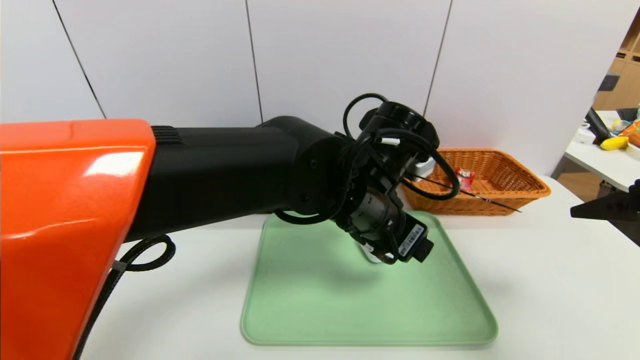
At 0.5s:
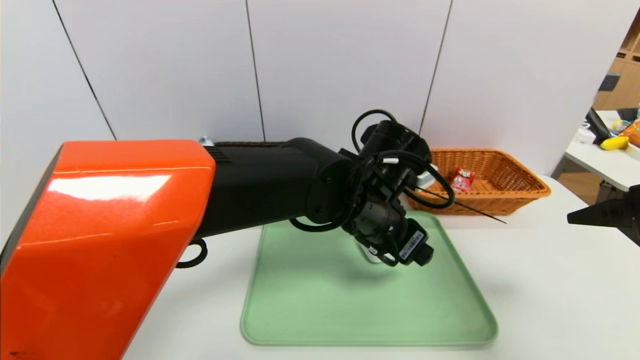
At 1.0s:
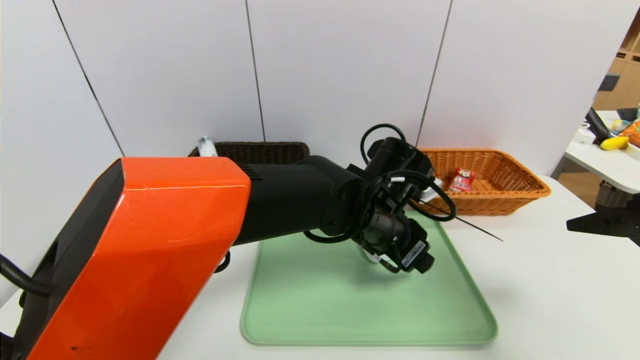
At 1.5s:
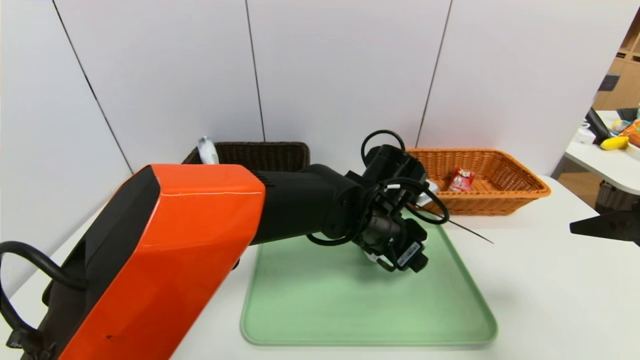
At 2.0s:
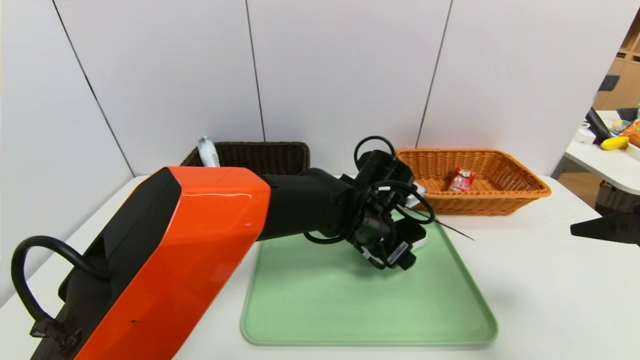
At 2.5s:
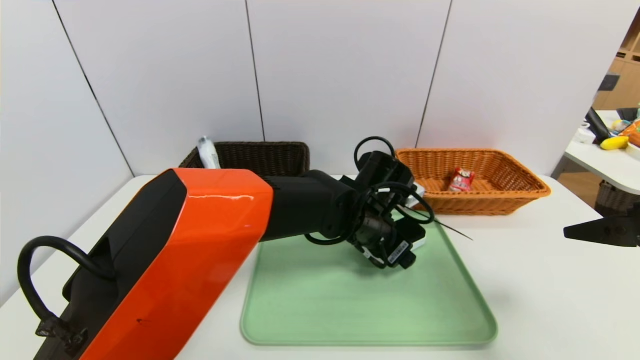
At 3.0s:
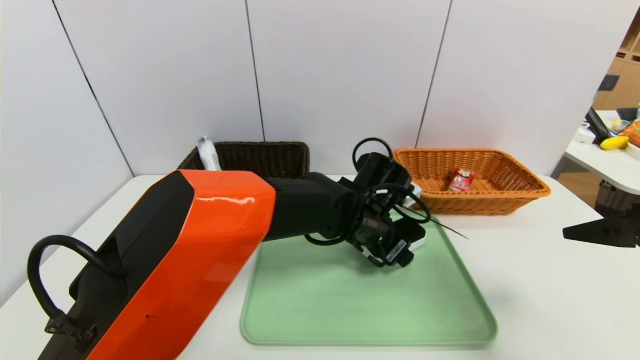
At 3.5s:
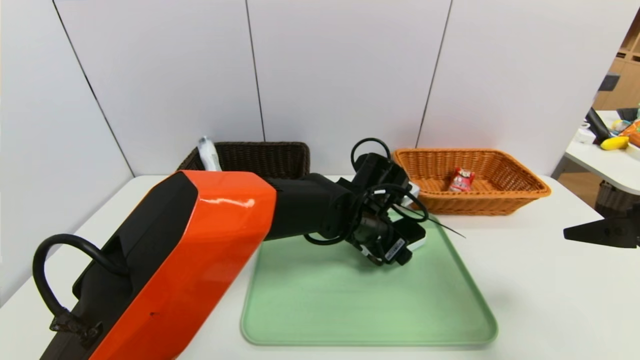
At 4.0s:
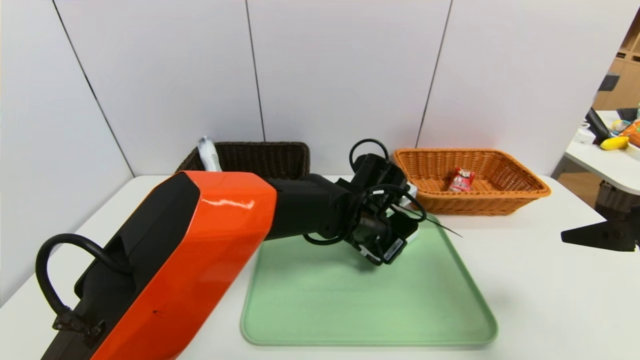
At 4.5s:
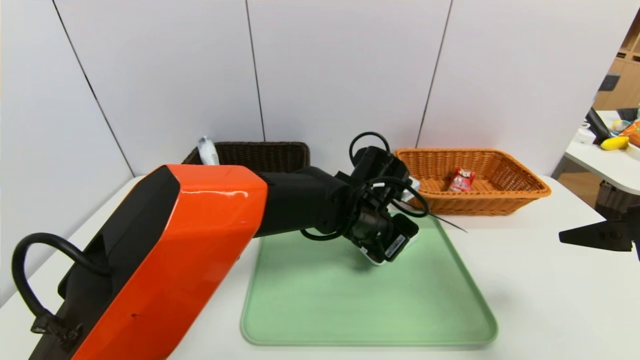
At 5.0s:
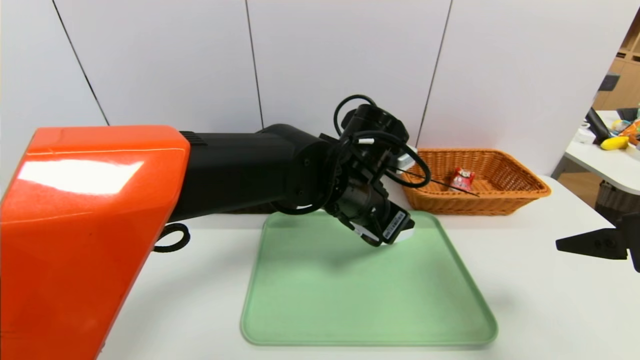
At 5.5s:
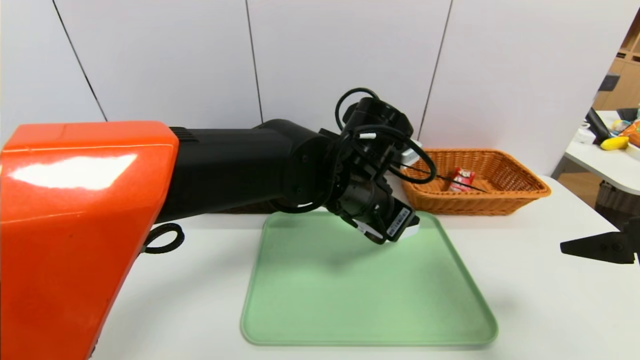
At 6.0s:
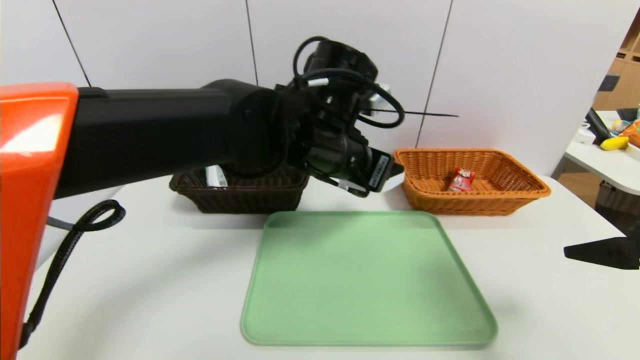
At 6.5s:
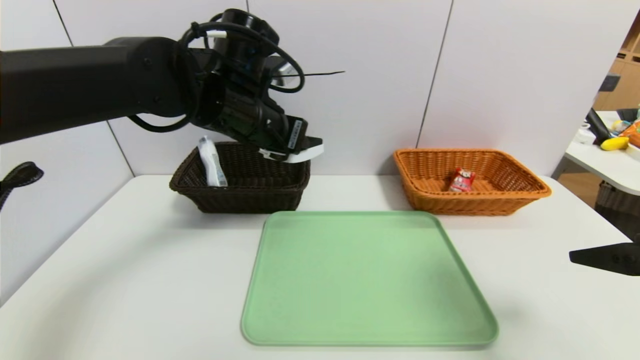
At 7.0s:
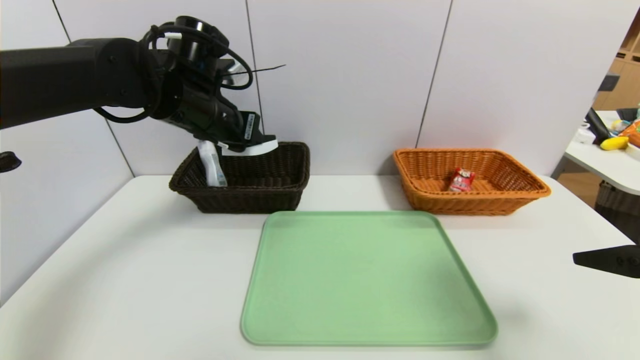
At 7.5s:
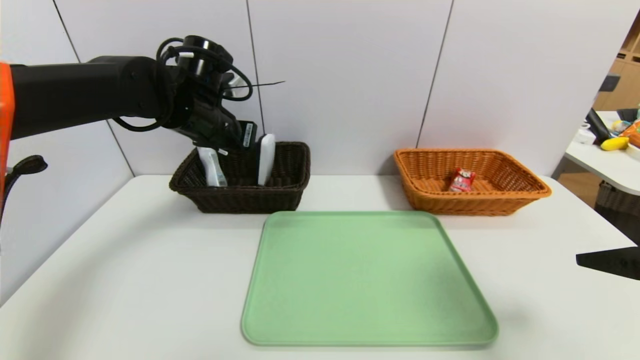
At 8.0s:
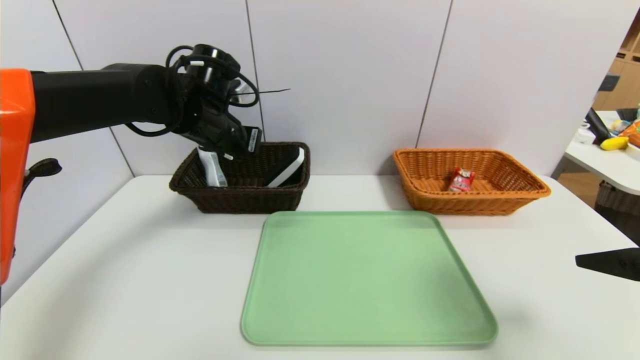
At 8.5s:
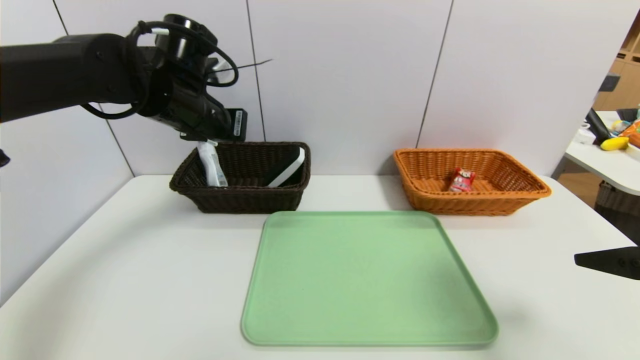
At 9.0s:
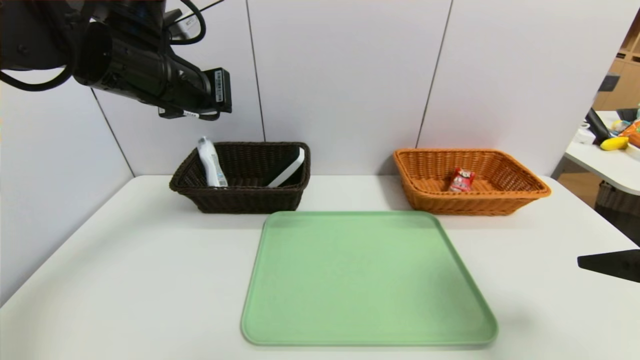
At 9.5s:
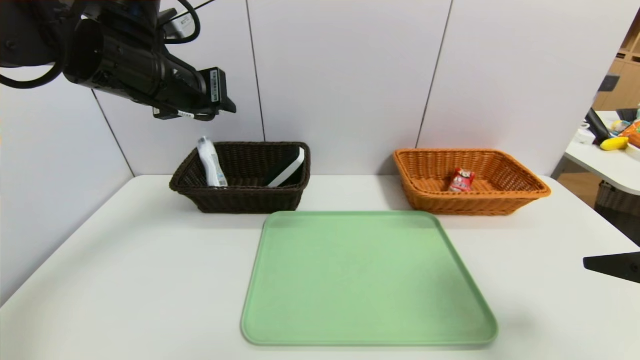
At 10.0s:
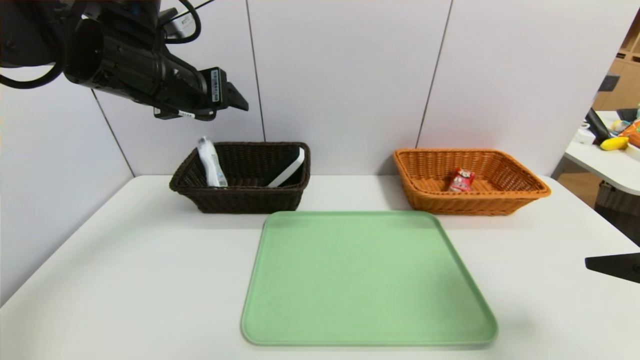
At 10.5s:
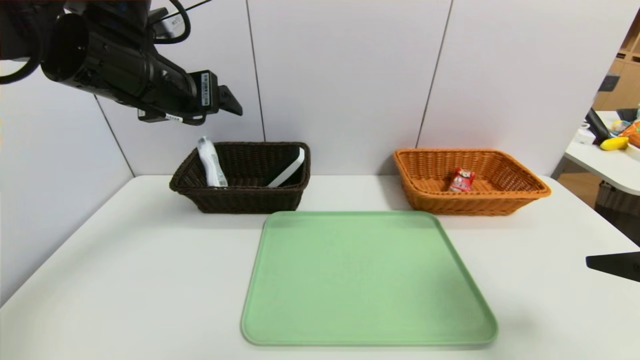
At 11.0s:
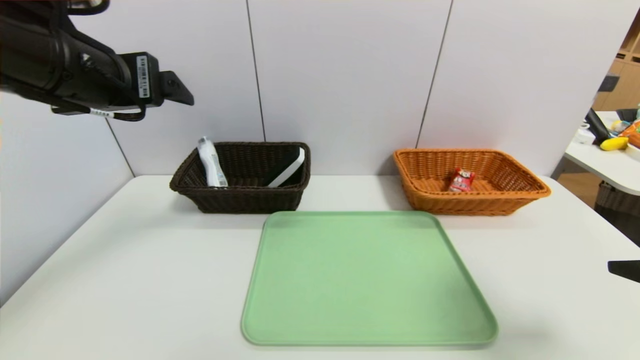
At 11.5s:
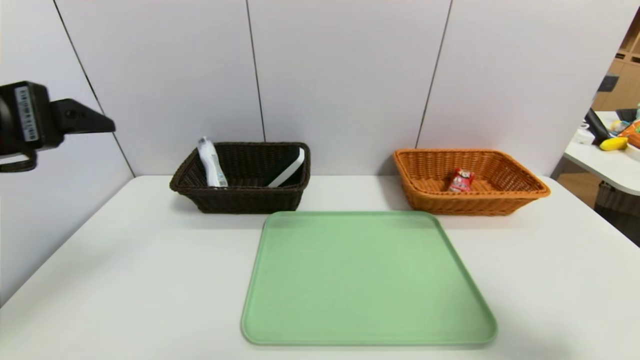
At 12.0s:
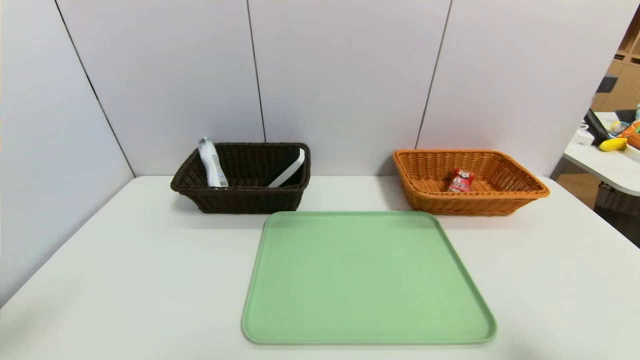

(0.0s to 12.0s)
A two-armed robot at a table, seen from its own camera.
Task of the whole recording: place the food in the right basket with the right gripper, and place the non food items in the left basket with the left gripper.
Step, 0.0s - 7.5s: Grasp the white eraser and put it in the left basket.
0.0s - 2.0s: The left gripper goes about 10 cm downward and forward.
2.0s - 4.0s: The left gripper closes up.
4.0s - 6.0s: The left gripper heads upward and to the left, covering about 15 cm.
6.0s - 8.0s: The left gripper travels to the left and forward by about 20 cm, and closes.
8.0s - 10.0s: The left gripper is displaced upward and backward by roughly 10 cm, and opens up.
10.0s - 12.0s: The left gripper shifts approximately 30 cm backward and to the left, while the right gripper goes roughly 10 cm backward.

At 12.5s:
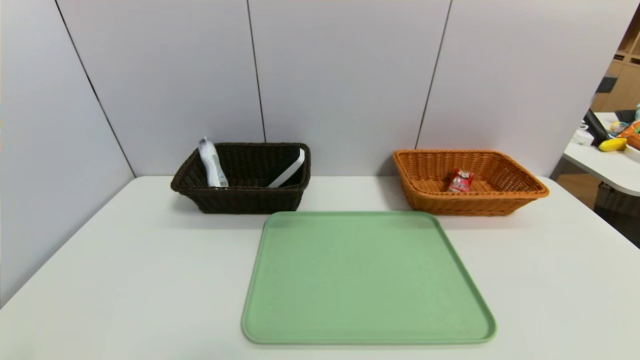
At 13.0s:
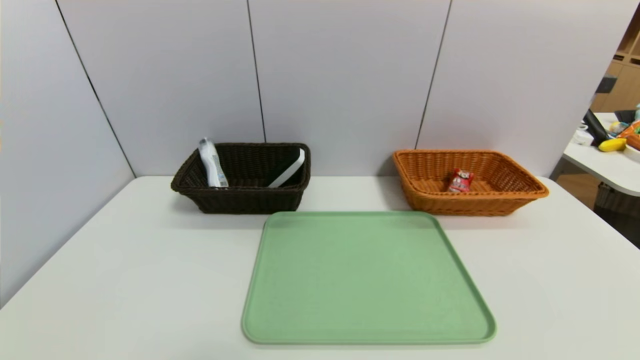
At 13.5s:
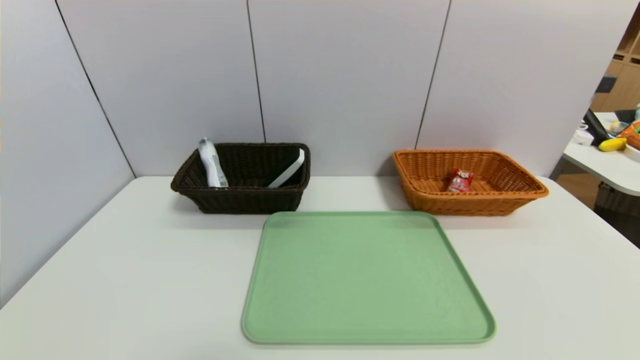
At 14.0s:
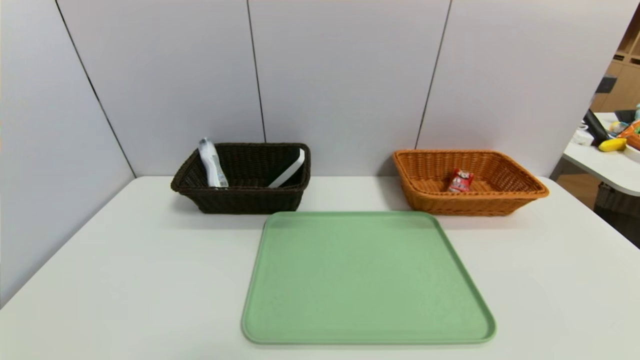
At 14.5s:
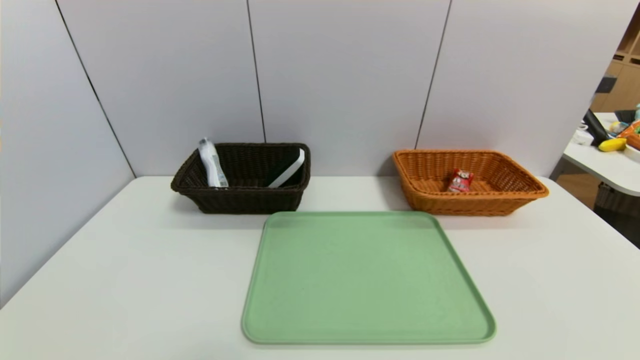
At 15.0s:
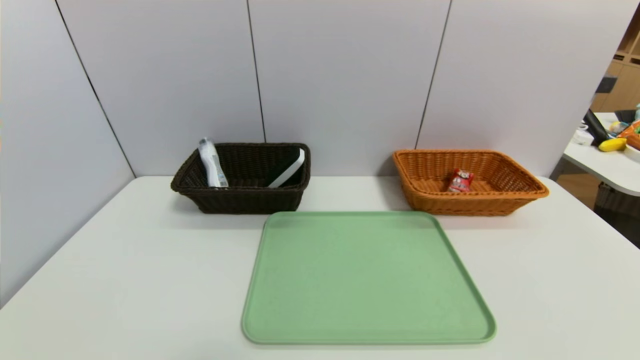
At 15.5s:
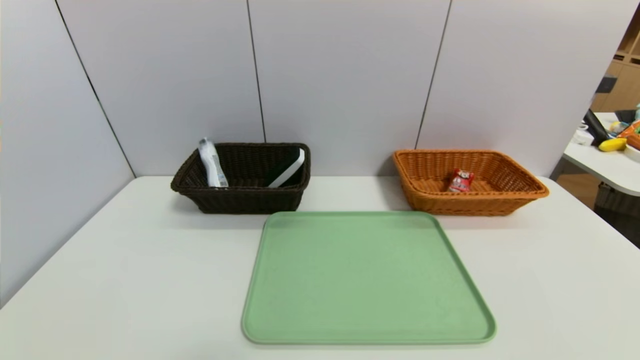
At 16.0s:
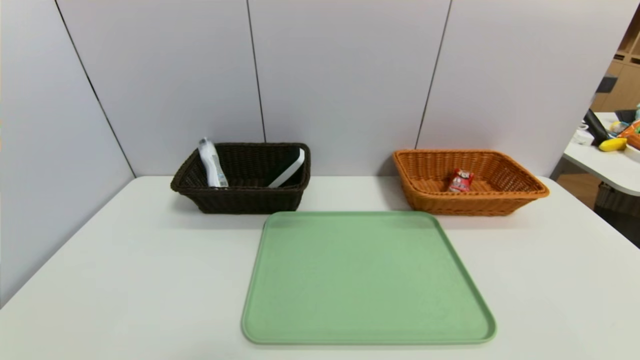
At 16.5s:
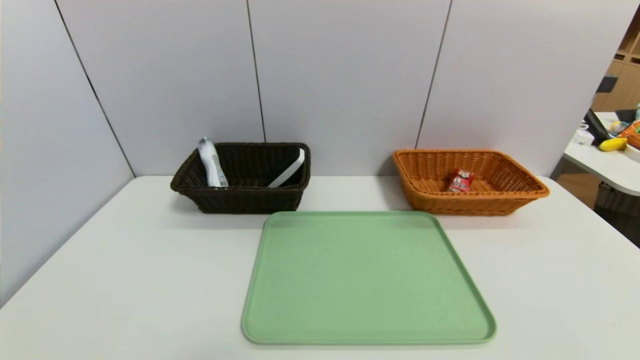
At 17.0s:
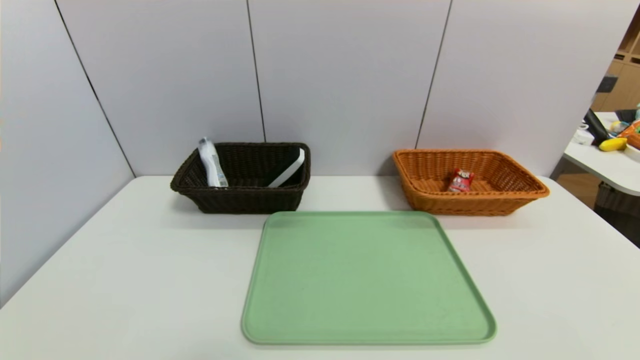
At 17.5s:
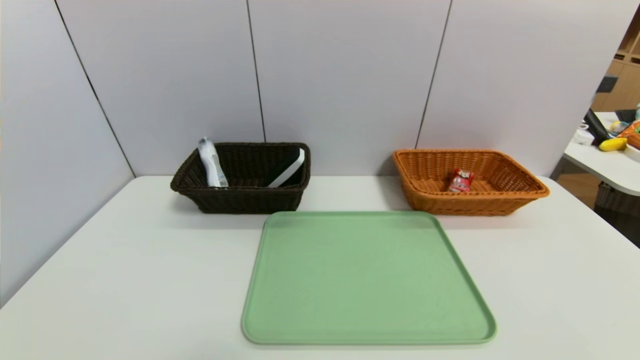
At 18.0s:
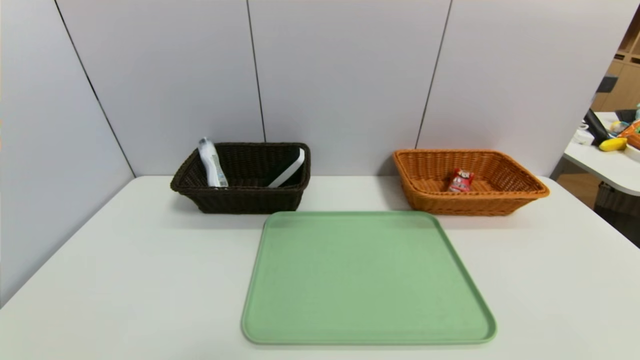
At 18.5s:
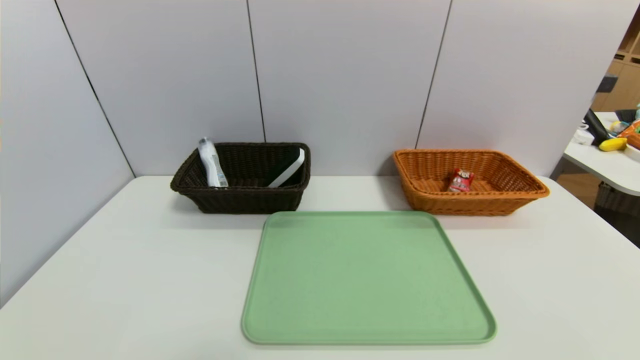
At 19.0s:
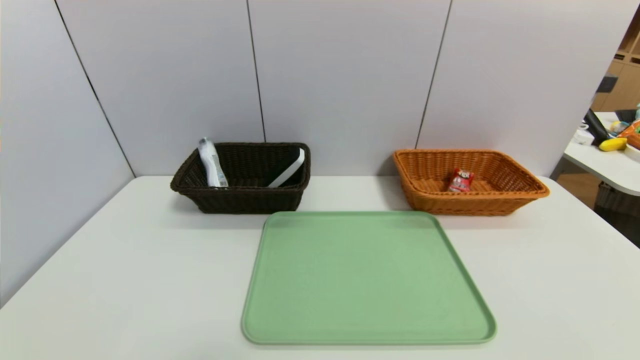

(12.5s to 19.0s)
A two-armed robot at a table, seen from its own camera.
Task of the whole recording: place the food in the right basket with the right gripper, and place the non food items in the left basket with the left gripper.
17.0s - 19.0s: Neither gripper changes place.
